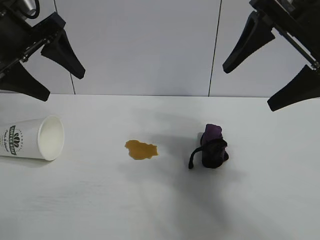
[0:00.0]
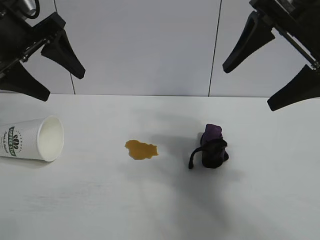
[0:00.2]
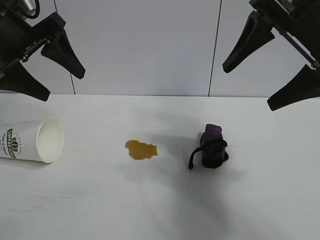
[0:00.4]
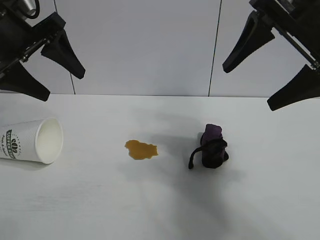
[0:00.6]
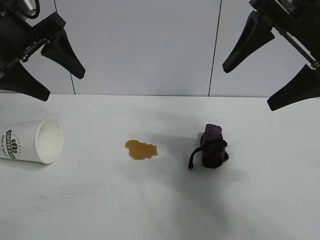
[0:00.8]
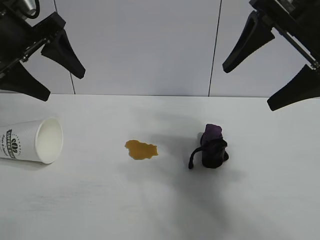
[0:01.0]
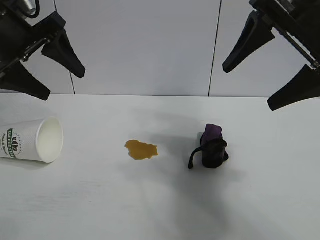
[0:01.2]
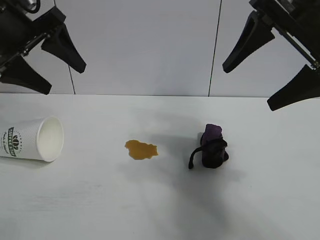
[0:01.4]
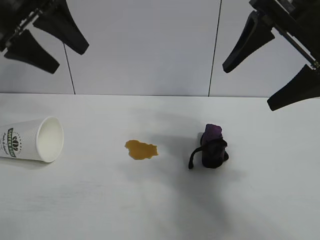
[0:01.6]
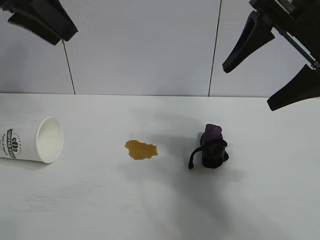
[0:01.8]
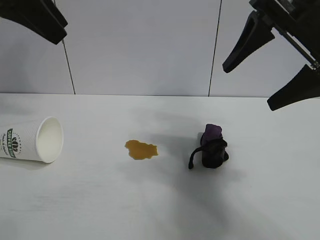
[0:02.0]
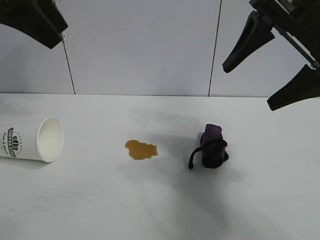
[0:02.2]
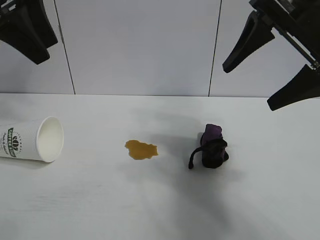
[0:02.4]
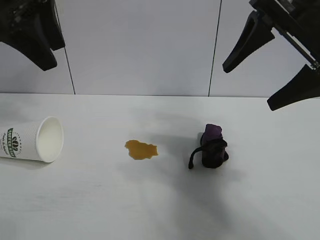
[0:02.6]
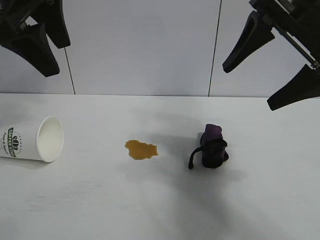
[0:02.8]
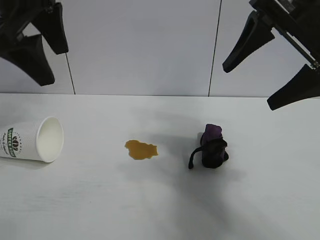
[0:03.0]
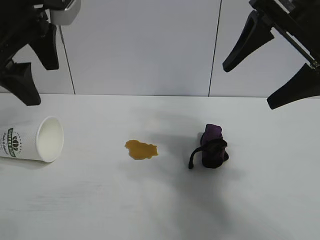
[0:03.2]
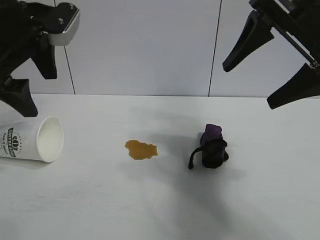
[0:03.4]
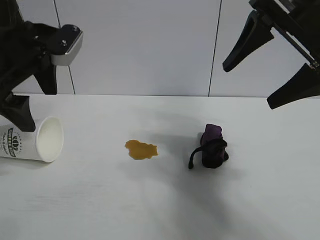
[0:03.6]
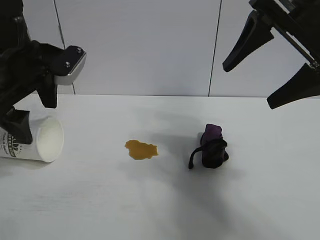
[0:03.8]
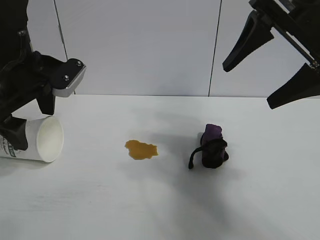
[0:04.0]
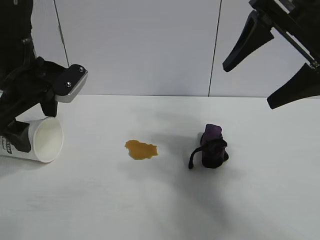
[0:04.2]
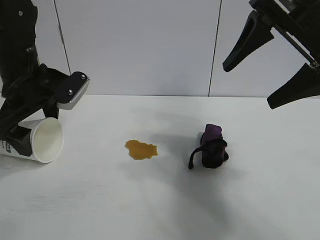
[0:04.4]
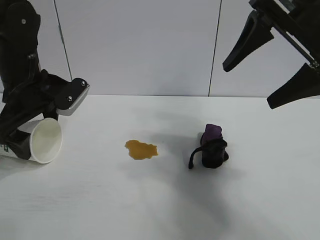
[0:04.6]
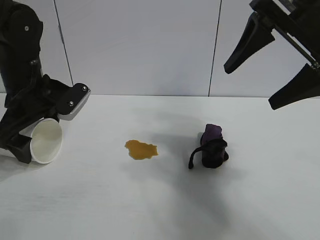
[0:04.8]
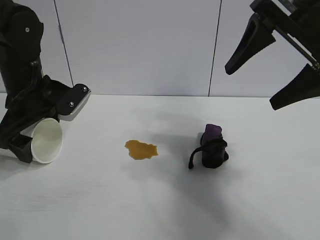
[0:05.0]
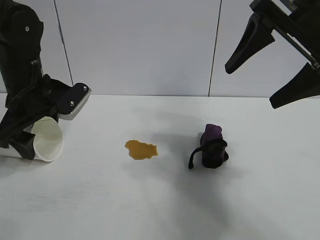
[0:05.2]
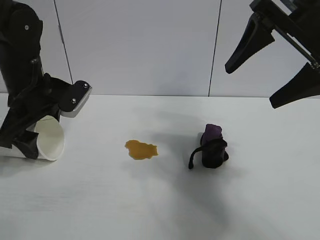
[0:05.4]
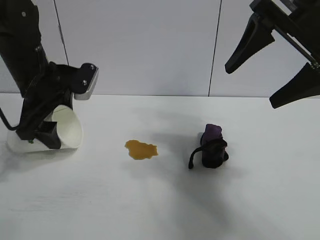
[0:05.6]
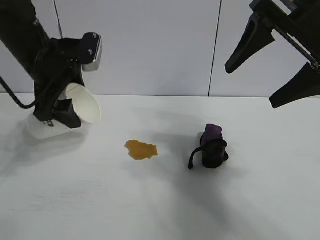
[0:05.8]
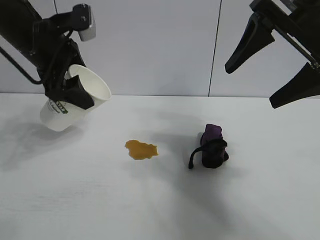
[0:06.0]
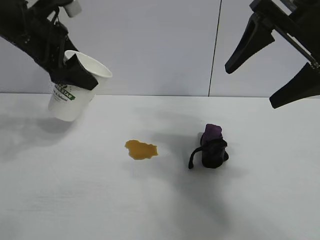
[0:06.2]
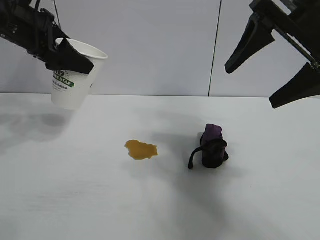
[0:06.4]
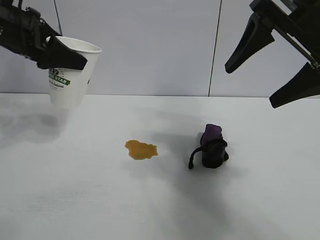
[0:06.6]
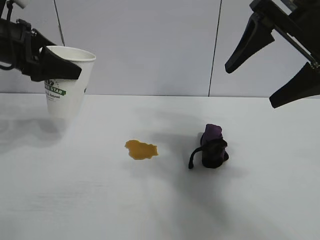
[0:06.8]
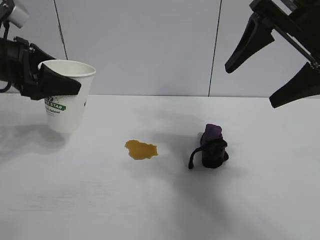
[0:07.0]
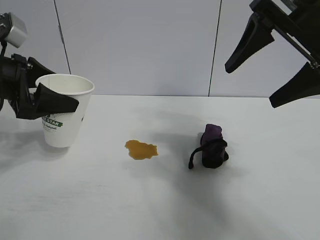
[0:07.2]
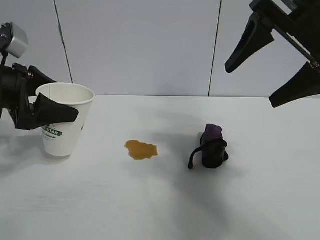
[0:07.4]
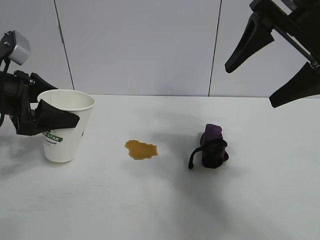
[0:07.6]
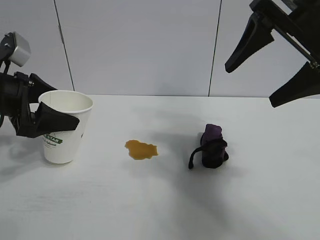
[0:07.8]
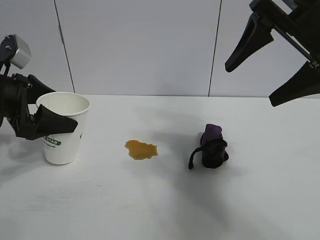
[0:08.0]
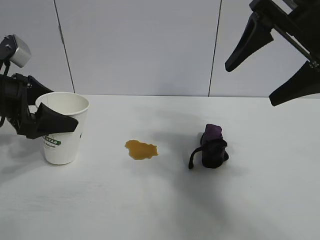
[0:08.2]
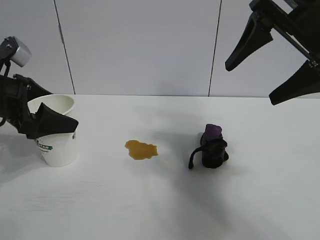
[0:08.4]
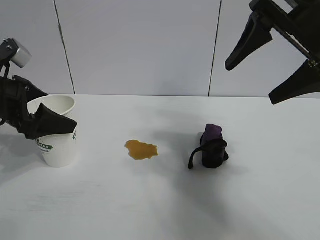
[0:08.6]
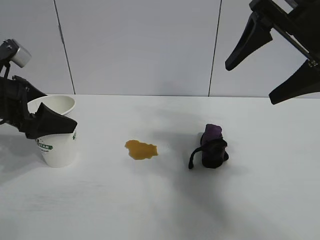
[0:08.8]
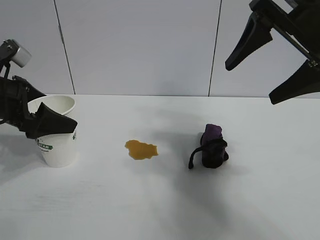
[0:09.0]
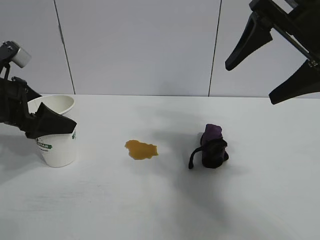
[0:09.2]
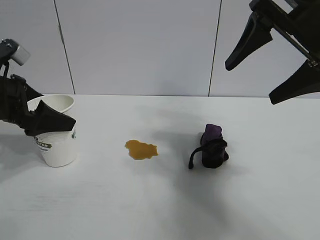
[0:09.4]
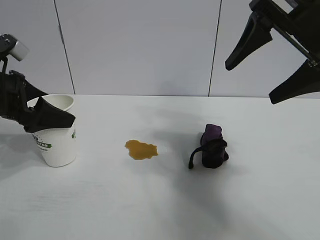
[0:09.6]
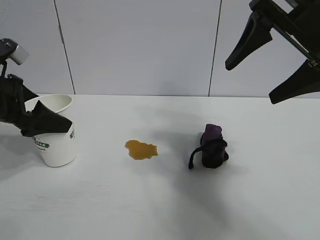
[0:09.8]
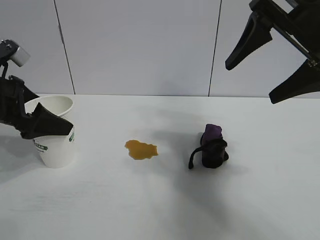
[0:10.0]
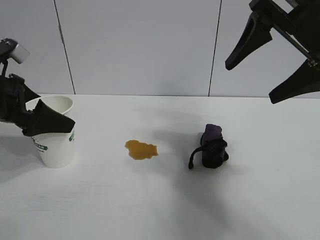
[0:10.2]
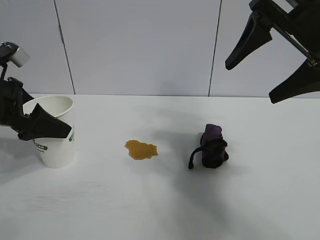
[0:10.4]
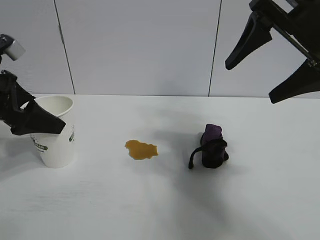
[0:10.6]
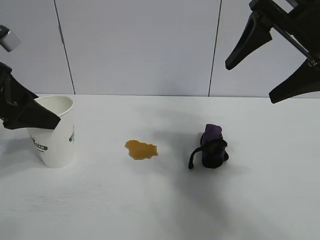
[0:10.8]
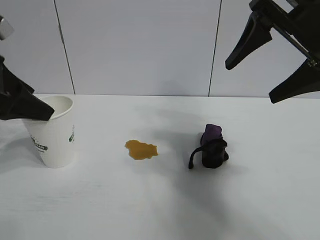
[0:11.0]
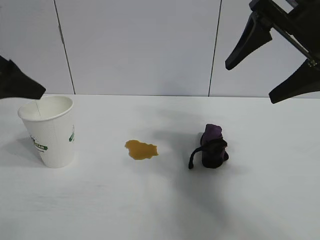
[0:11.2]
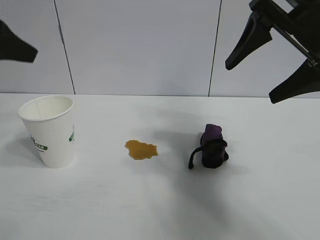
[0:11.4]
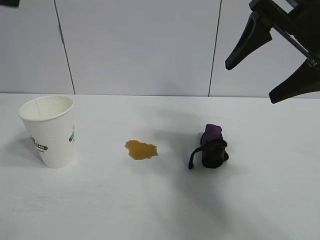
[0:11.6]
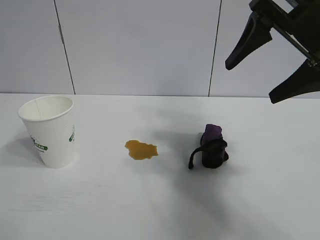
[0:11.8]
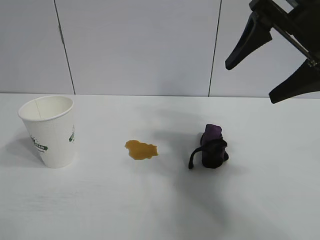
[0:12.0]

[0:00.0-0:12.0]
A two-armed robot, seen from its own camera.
Task of the whole recording: the left gripper pick up the fallen cup and place it upright, the right gripper grasp the black rag and wipe the stain on the table, the right gripper put the black rag back in its original position.
Step, 0:01.4 to 0:05.2: Grasp the paper cup with left gripper.
Step, 0:05.4 to 0:09.8: Stand the paper cup upright with left gripper.

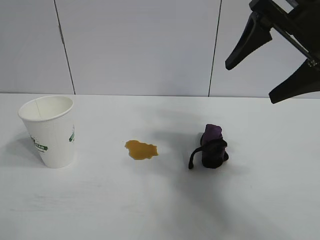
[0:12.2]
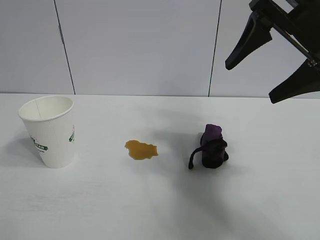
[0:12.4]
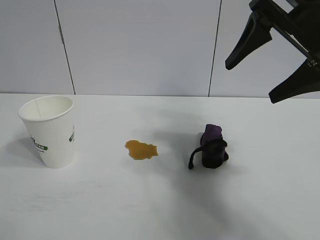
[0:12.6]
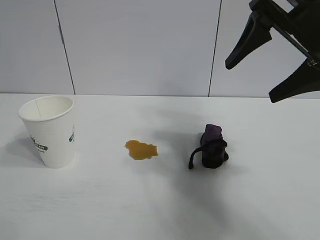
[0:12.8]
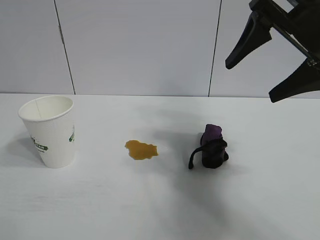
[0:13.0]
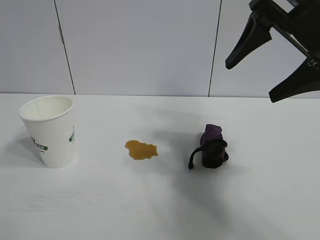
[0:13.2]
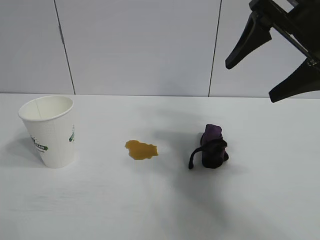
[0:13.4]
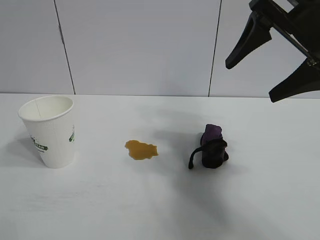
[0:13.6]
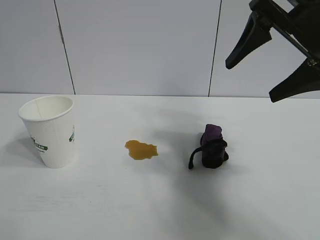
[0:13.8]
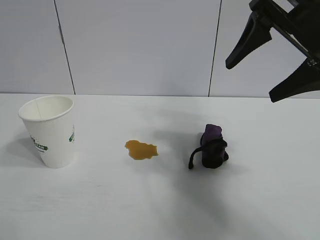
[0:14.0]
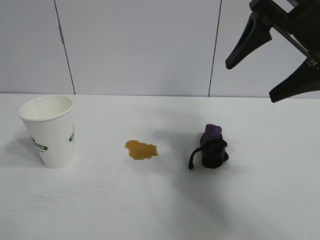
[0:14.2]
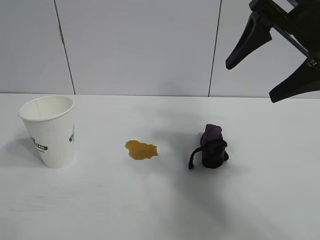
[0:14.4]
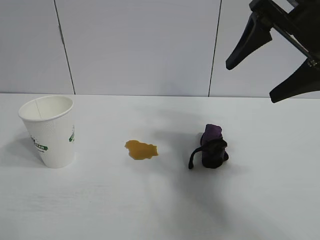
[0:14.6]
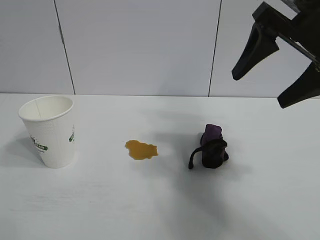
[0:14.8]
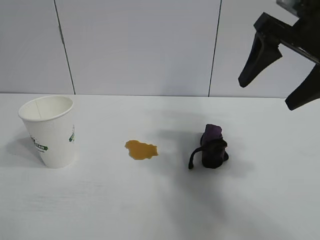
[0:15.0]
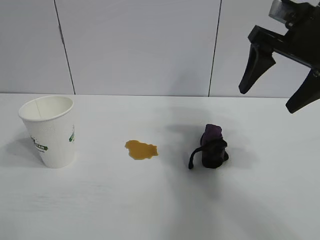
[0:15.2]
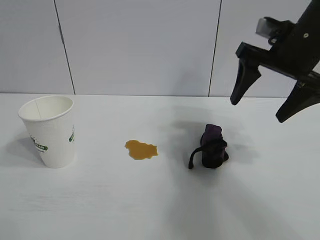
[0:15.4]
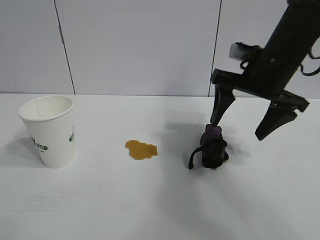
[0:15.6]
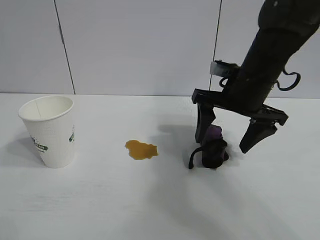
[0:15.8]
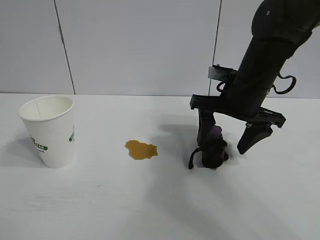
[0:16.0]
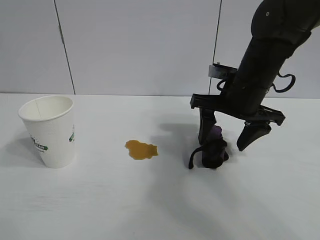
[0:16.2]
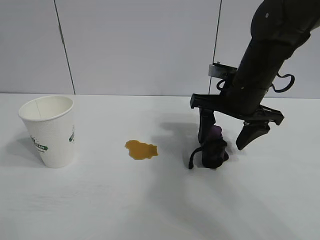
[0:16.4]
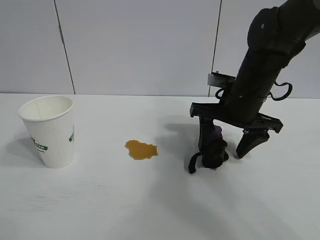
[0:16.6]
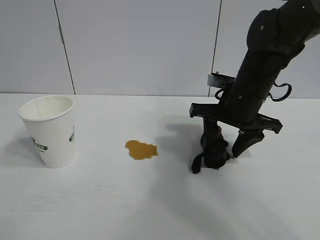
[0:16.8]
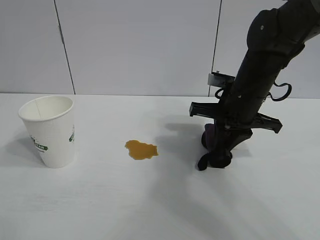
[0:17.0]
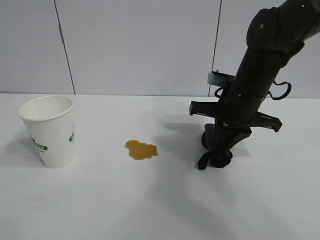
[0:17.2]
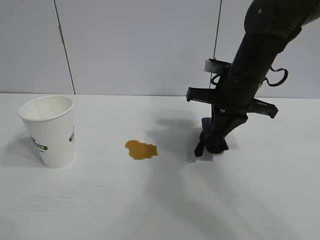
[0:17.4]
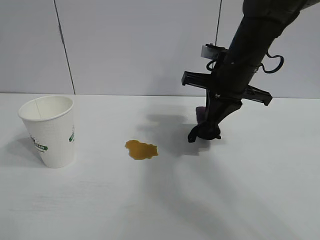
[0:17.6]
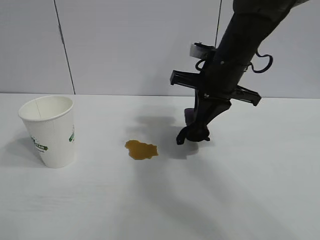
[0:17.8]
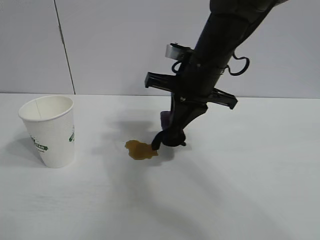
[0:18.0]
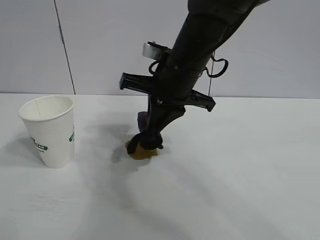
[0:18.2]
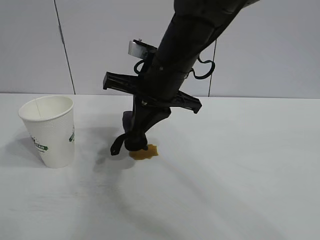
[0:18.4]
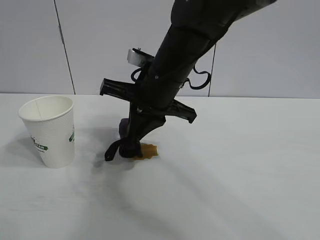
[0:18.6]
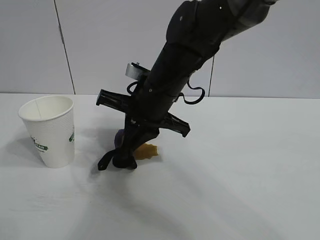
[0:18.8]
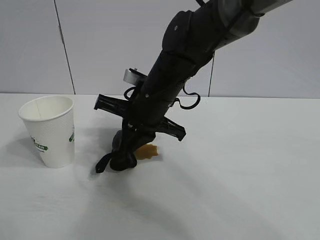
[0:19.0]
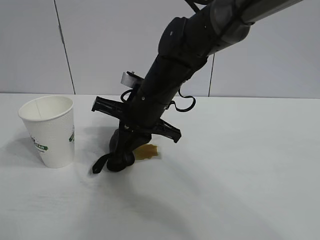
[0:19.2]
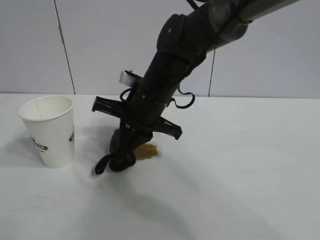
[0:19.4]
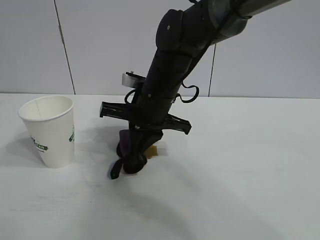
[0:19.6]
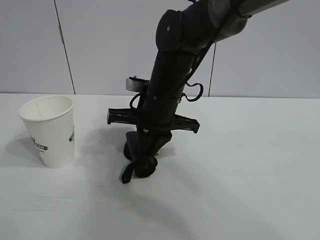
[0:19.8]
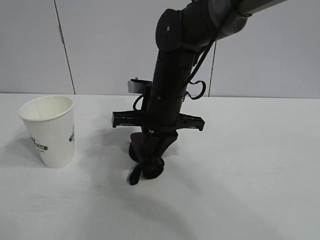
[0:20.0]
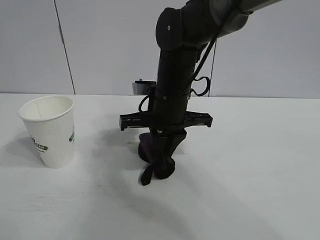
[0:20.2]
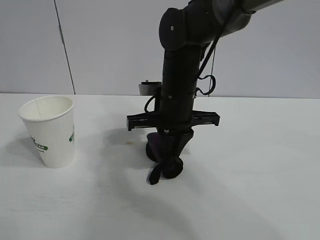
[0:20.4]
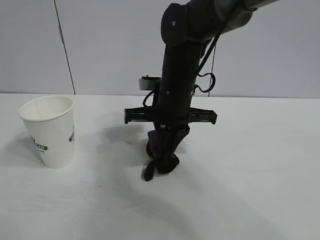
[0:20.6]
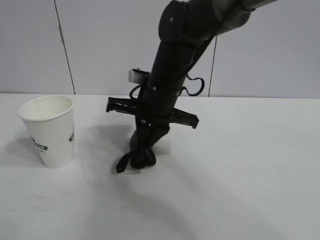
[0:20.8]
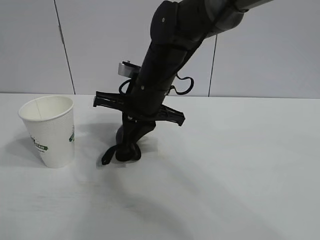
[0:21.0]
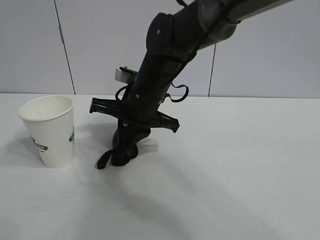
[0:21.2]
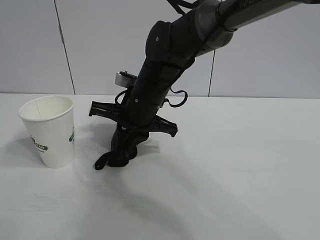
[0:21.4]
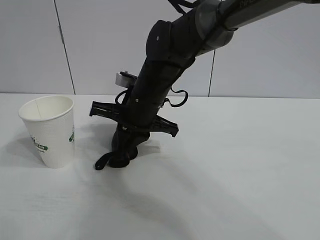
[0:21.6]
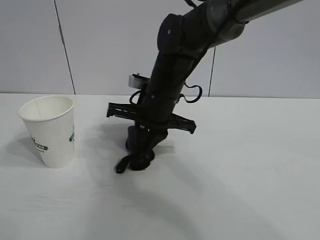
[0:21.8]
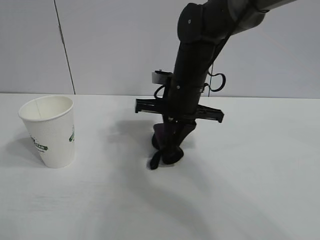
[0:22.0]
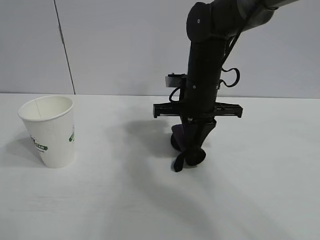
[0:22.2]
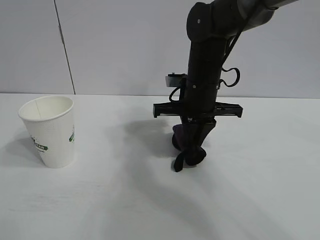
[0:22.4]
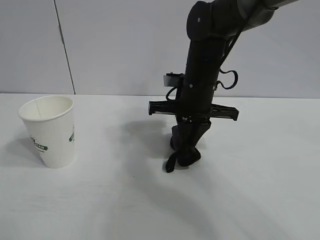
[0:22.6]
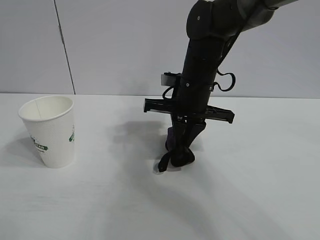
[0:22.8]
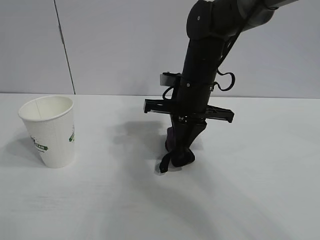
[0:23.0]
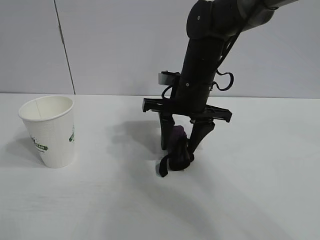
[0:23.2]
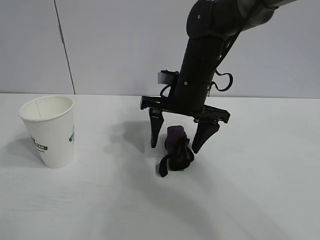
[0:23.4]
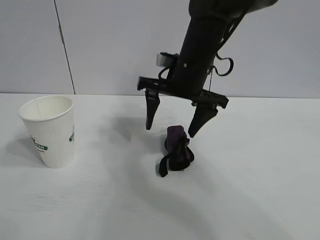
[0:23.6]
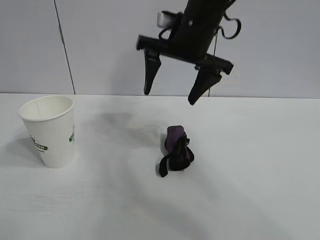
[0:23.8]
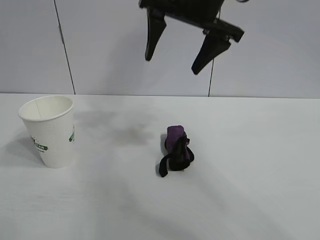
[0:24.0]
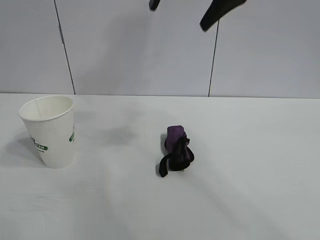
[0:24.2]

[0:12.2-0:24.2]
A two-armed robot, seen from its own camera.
Task of the whole recording: the left gripper pick up the fallen cup and place it upright, the right gripper grasp the black rag and wipe the stain on the table, the right gripper put the black rag back in its original position.
Step, 0:12.2 to 0:17.0: Grasp the rag with right gripper.
Step, 0:17.2 to 0:22.0: Wipe the stains off the table with the rag with right gripper.
Step, 0:22.4 to 0:23.0: Place the rag on the table with right gripper.
